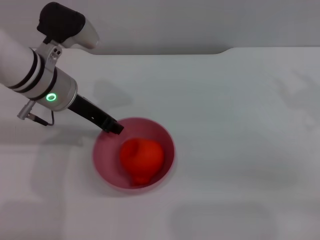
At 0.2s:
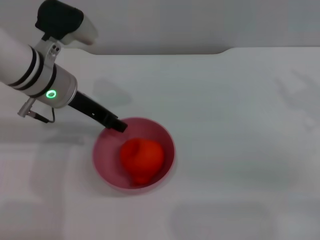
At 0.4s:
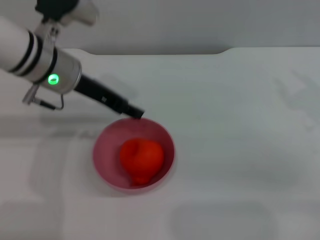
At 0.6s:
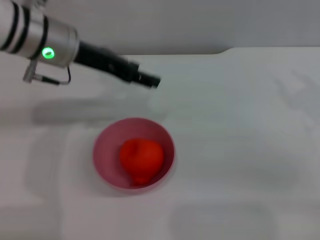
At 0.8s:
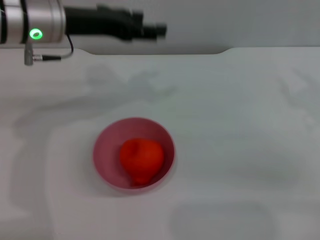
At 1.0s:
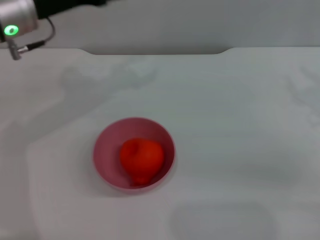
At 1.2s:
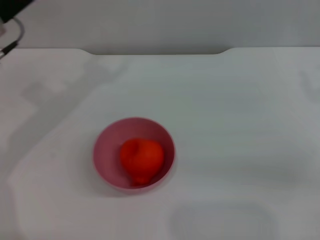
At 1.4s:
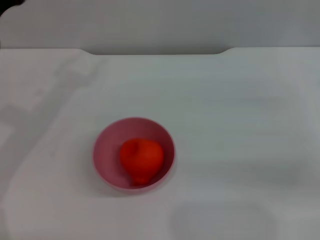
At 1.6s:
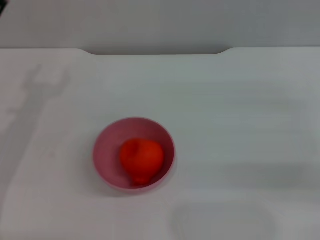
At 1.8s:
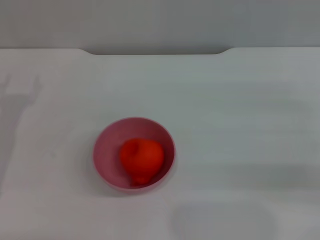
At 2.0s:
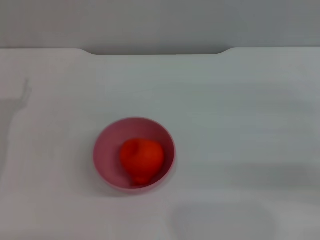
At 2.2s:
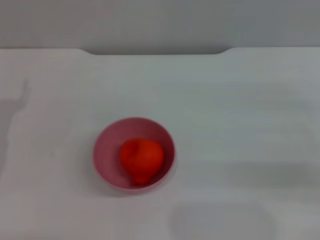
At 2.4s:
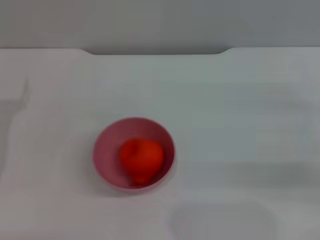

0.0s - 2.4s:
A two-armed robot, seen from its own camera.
Task of the whole recording: put the orange into the pink bowl and pour it out repeatedly.
0.0s - 1.2s: The left gripper is displaced to the left by some 10 cm, and opens up.
1.2s - 2.4s: The left gripper moves downward, backward and to the left, roughly 15 cm.

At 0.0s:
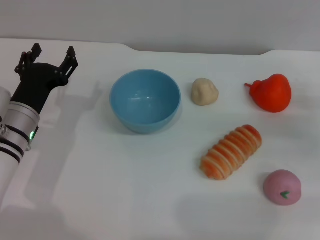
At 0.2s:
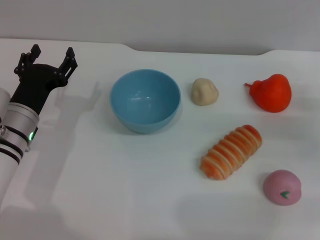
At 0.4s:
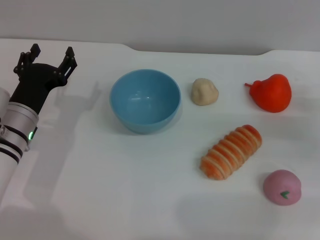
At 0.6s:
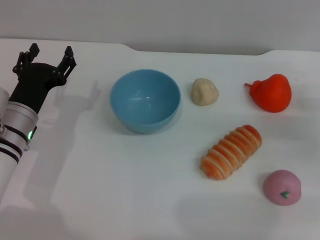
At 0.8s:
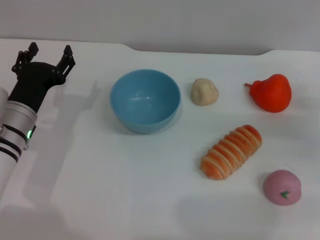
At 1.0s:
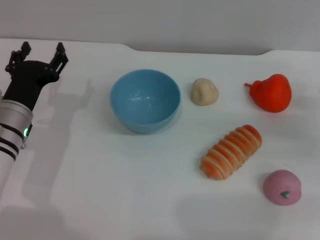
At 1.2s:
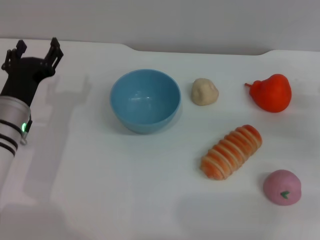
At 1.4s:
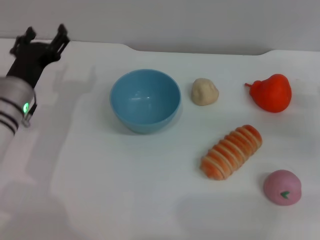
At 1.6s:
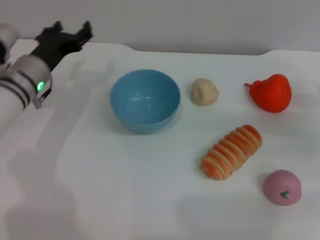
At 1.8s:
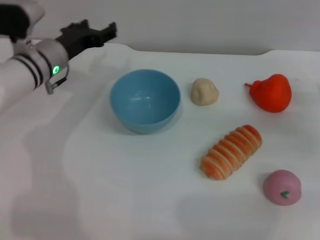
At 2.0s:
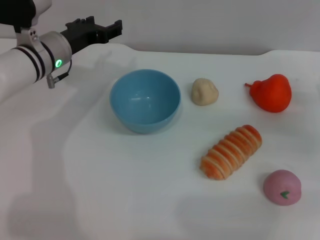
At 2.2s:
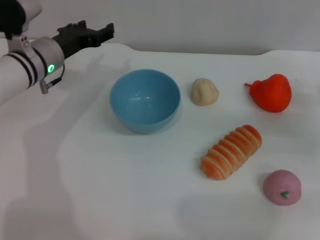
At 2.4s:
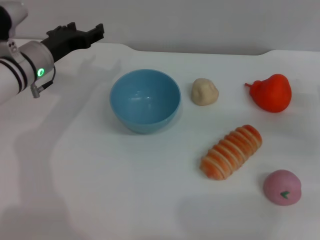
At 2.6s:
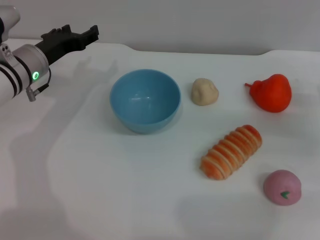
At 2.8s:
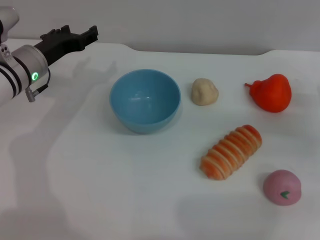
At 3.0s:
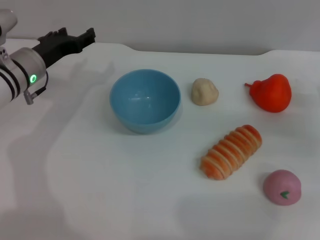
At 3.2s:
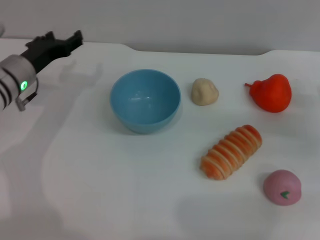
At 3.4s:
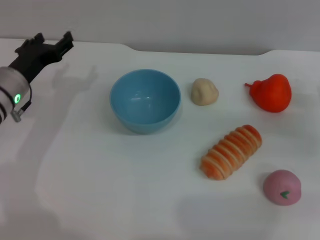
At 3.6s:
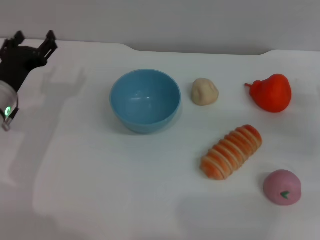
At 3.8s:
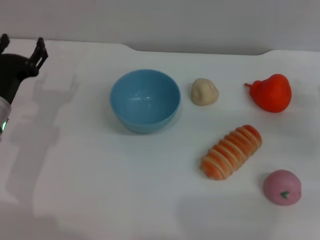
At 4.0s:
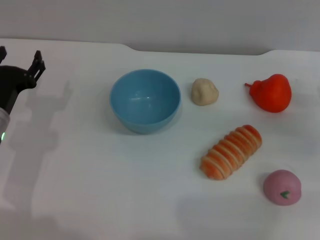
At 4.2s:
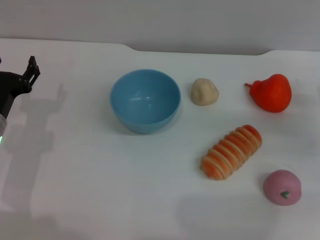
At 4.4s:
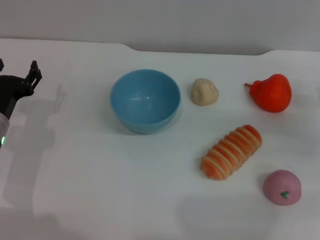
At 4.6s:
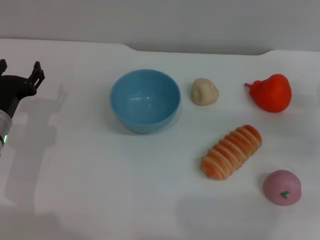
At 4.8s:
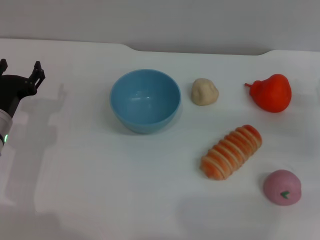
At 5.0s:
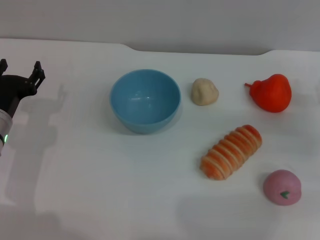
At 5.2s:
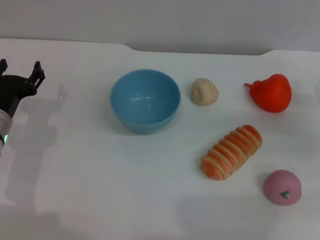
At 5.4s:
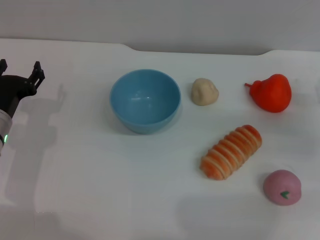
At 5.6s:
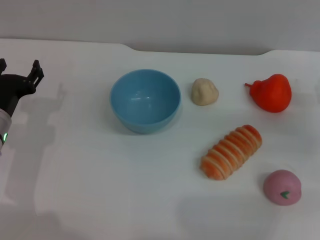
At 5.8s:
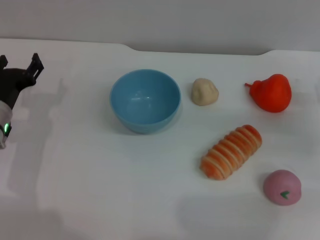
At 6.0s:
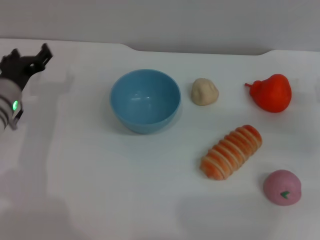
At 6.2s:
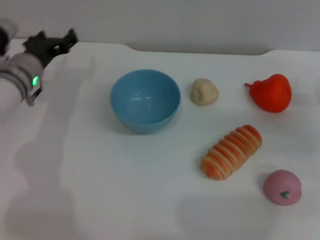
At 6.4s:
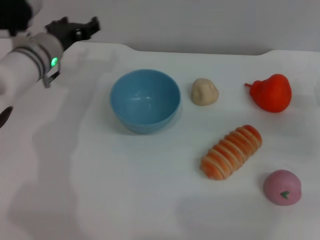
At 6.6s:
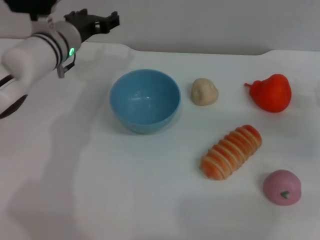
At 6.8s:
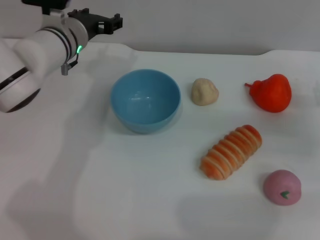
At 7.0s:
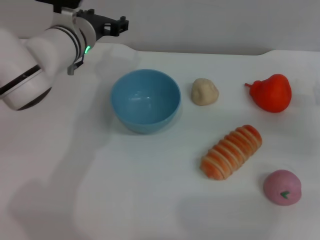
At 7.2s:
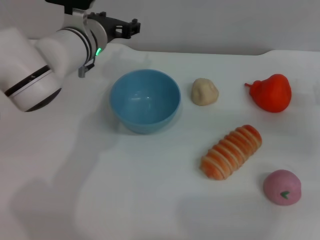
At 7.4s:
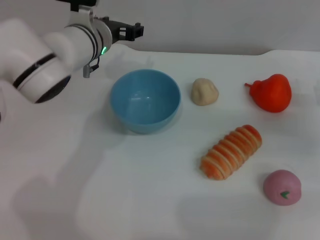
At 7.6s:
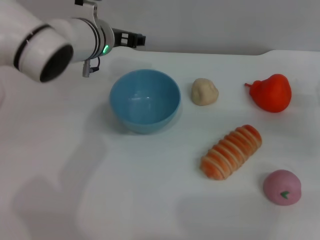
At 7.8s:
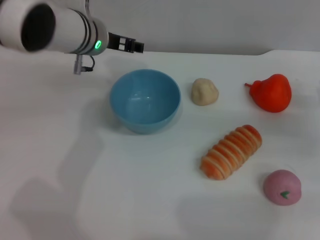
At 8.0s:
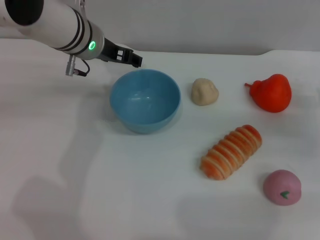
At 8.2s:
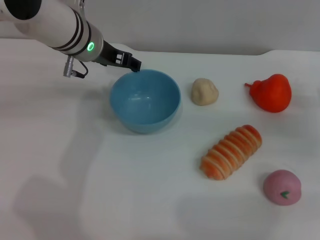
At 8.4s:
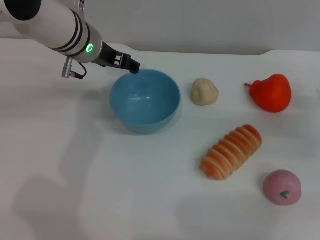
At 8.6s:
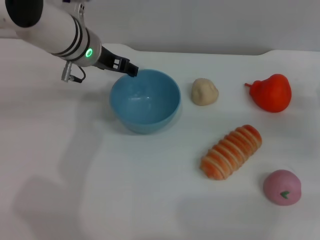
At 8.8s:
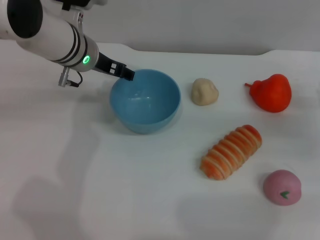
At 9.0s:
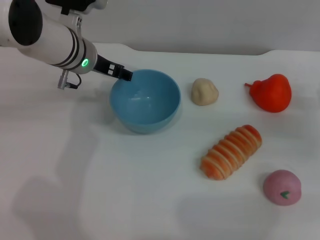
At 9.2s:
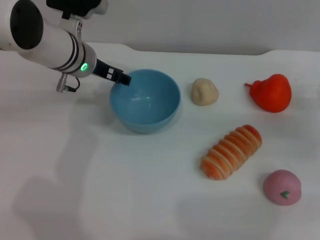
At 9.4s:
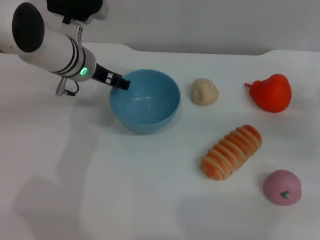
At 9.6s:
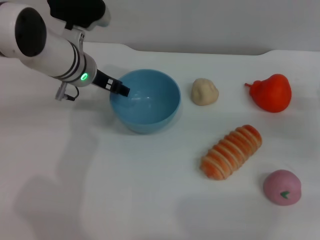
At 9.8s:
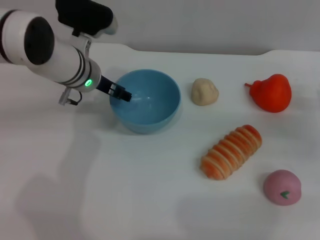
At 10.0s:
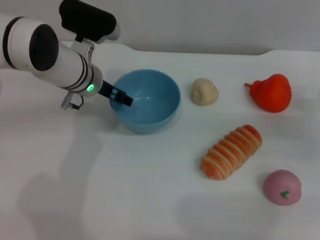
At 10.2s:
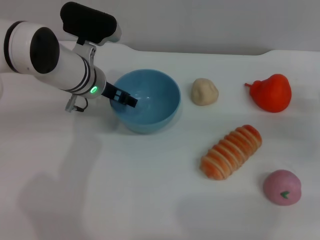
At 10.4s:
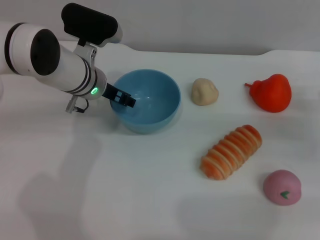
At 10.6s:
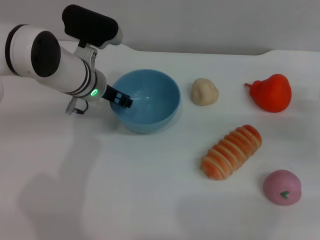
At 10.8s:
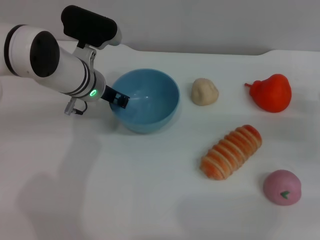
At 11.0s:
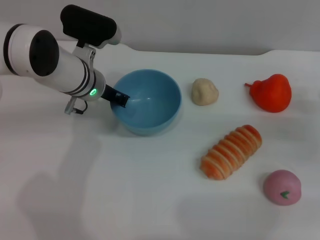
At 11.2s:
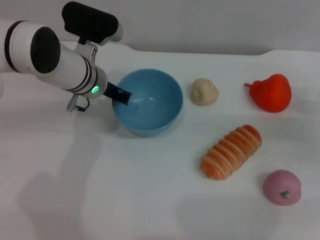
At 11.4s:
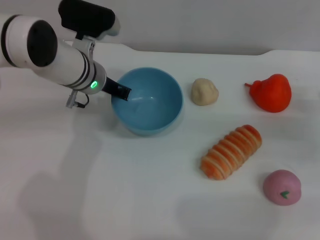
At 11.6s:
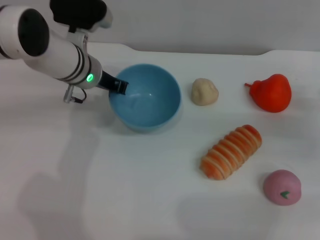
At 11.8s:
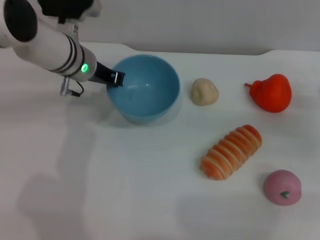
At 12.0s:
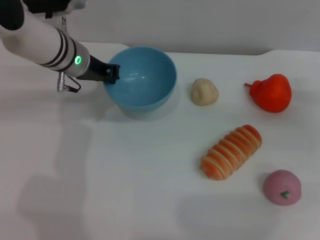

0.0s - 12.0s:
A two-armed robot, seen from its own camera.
Task of the whole recording: put the bread into the blue bowl and pour it out repeatedly.
0.0s - 1.6s: The left gripper is displaced forward by some 10 cm.
1.6s - 3.0s: The grippers move only a little.
3.0s - 4.4s: The left gripper is displaced backward and downward by approximately 10 cm.
4.4s - 6.0s: The left gripper goes some 5 cm forward.
6.0s - 7.6s: The left gripper shifts some 20 cm to the right, upward and forward.
7.6s - 9.0s: The grippers move only a little.
9.0s - 10.4s: The grippers make only small movements.
10.4s - 12.0s: The left gripper closes its fingers.

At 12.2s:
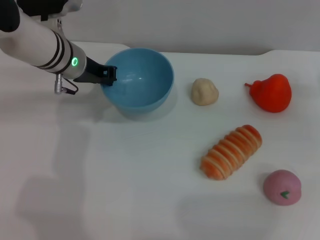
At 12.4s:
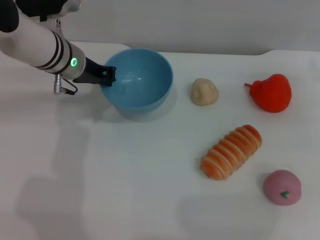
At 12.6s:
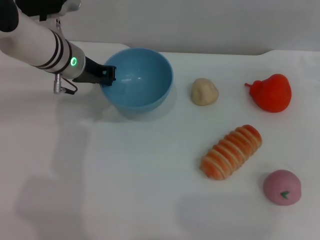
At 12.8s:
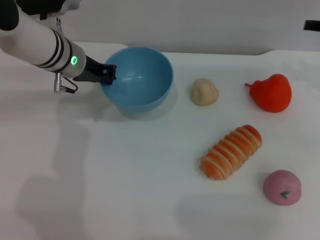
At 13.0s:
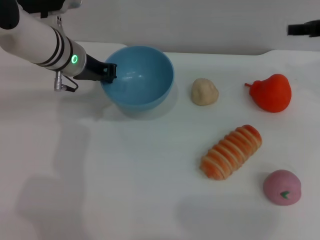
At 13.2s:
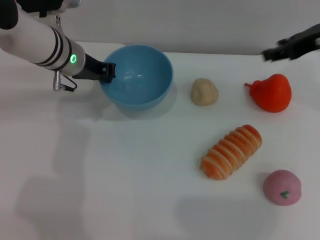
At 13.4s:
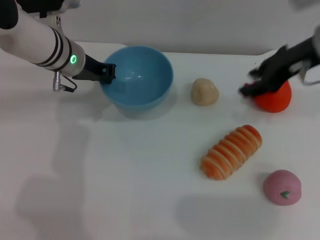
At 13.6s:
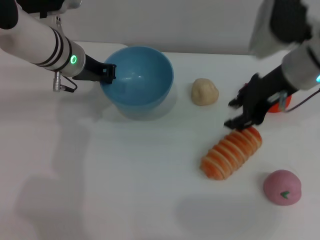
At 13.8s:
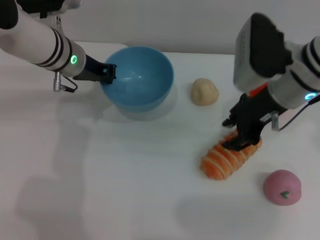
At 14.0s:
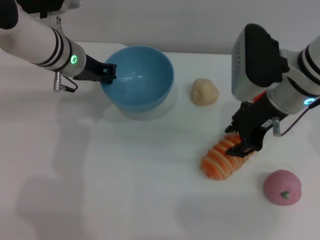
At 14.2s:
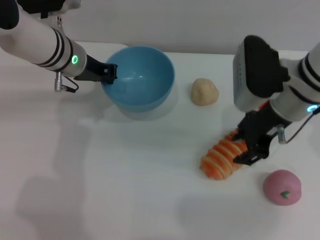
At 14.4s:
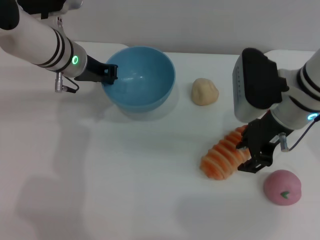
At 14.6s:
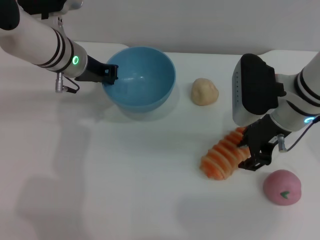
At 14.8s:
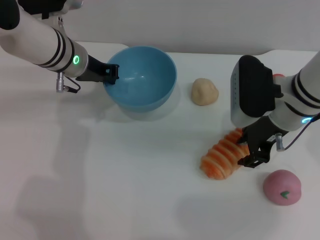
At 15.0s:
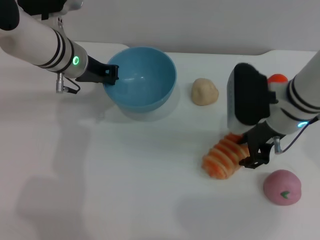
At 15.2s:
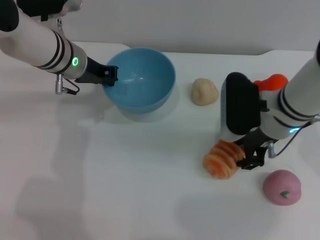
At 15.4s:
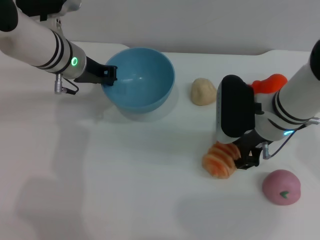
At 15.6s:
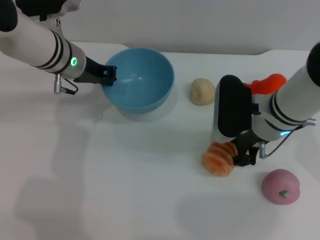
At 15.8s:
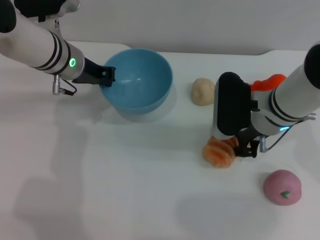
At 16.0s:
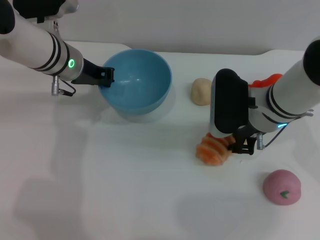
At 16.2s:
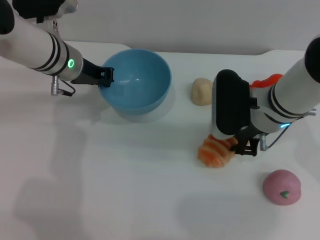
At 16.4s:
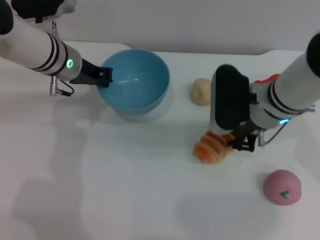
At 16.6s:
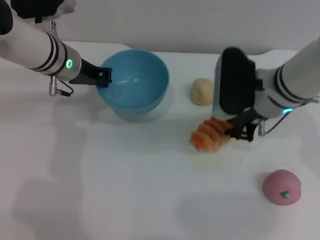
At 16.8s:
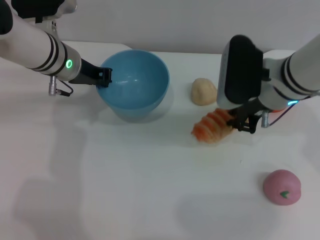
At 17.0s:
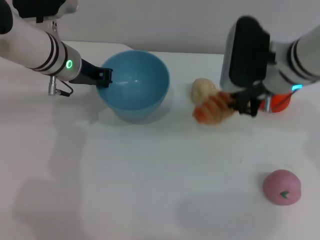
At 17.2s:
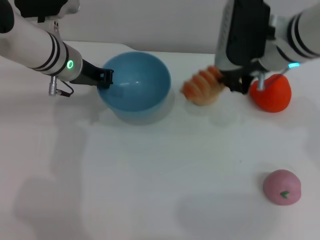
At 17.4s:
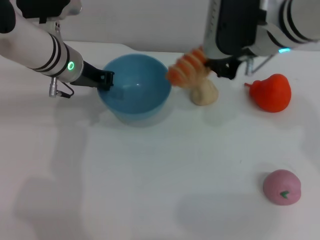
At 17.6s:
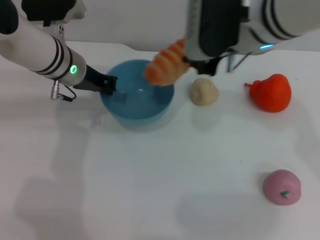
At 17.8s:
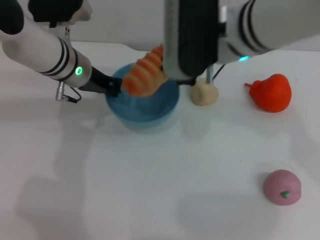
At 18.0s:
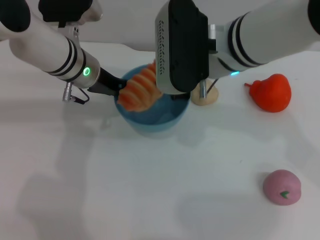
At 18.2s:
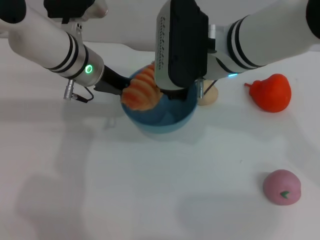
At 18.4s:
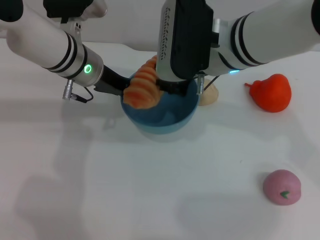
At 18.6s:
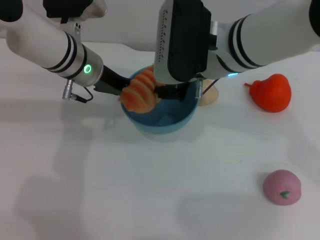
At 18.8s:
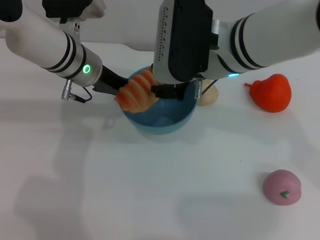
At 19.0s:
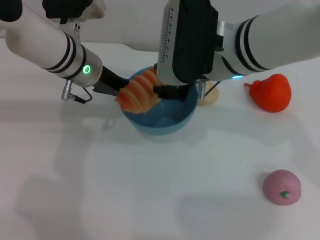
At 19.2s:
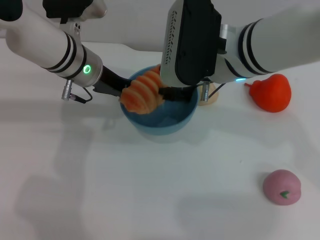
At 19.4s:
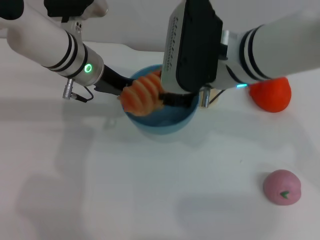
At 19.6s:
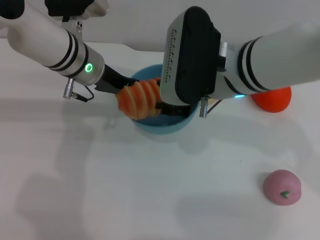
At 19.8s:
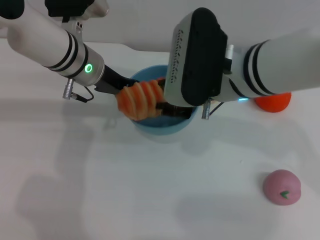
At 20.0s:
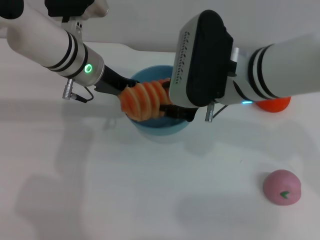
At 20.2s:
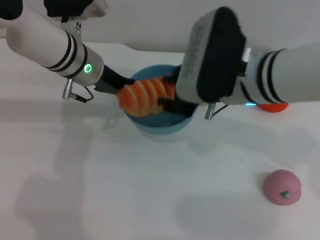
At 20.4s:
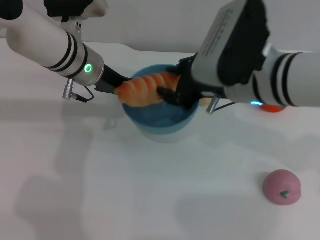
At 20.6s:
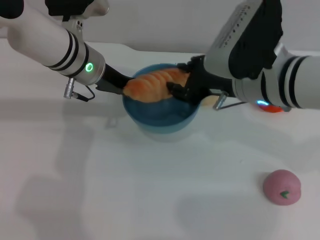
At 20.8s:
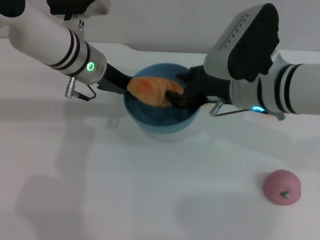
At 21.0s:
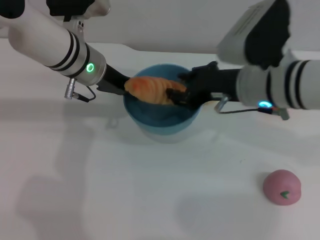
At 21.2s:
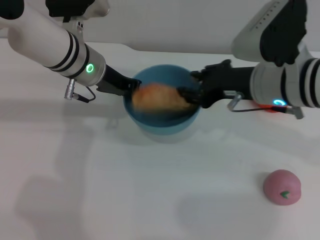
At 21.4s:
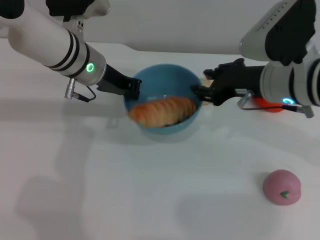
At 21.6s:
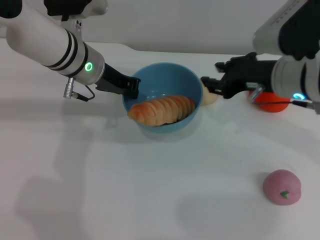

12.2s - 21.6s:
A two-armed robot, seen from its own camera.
Task of the whole recording: put the bread into the blue bowl and pour it out repeatedly.
Step, 12.2s - 16.8s: Pick up the bread with the right gripper.
Step, 17.2s - 21.4s: Place the bread into the bowl.
12.2s - 13.8s: The right gripper heads to the left and upward, covering approximately 20 cm.
13.8s - 15.4s: The right gripper travels downward by some 10 cm.
15.4s - 17.0s: The right gripper heads upward, covering approximately 5 cm, and closes.
17.0s - 18.4s: The right gripper moves to the left, roughly 10 cm.
18.4s - 20.0s: The right gripper opens.
20.0s - 21.6s: The right gripper is displaced to the right by about 10 cm.
